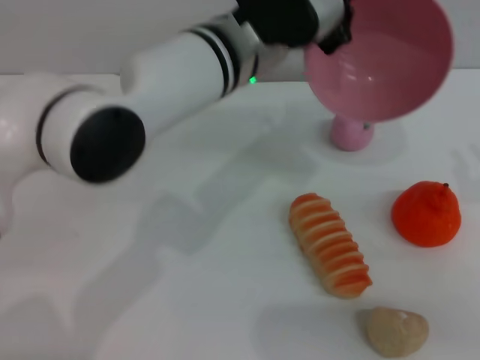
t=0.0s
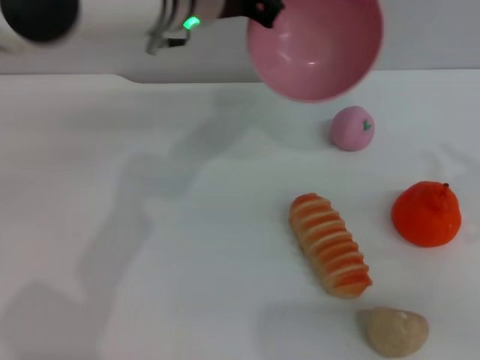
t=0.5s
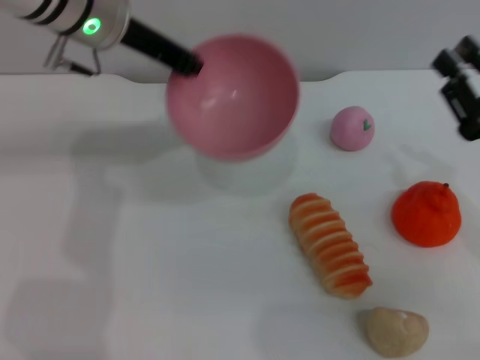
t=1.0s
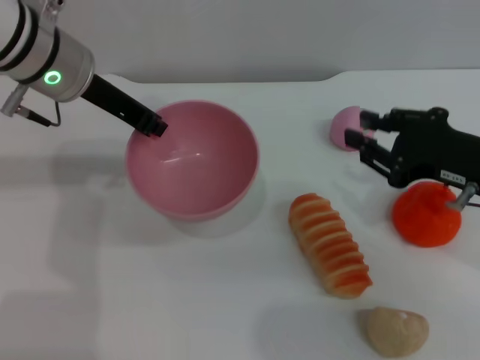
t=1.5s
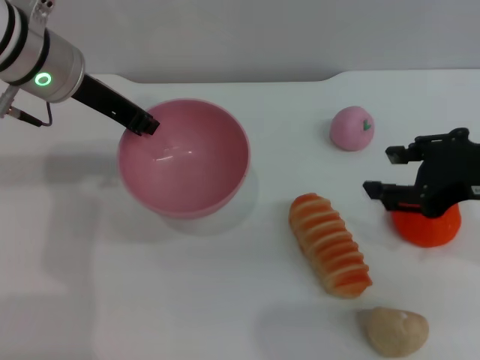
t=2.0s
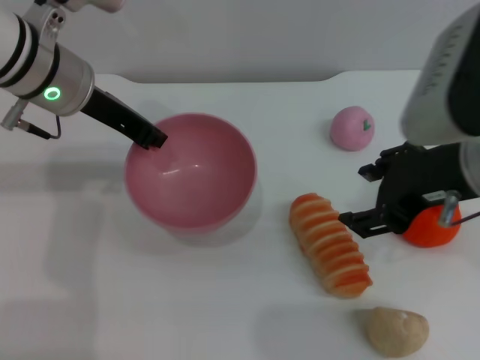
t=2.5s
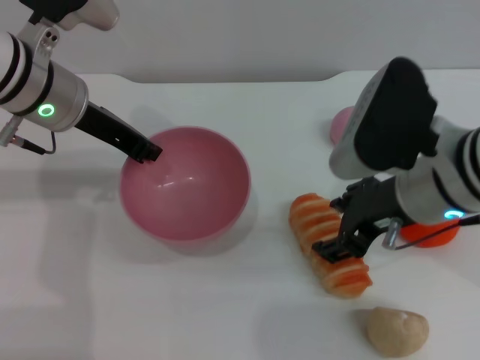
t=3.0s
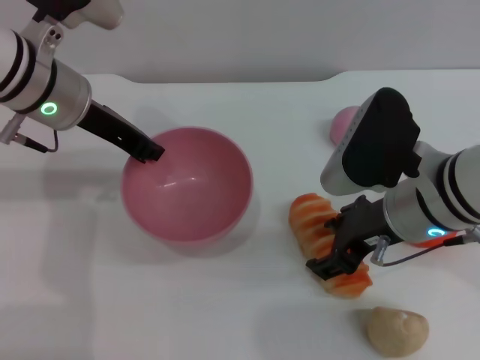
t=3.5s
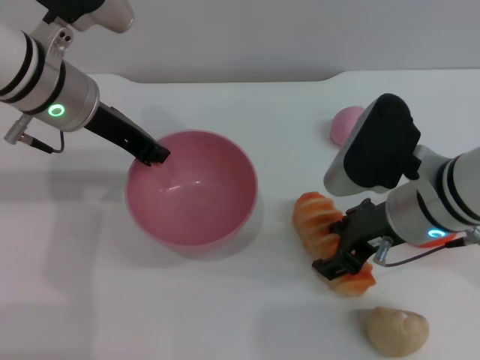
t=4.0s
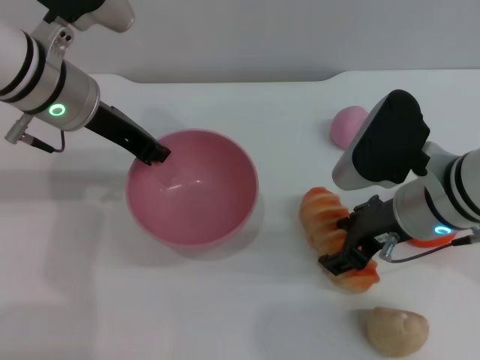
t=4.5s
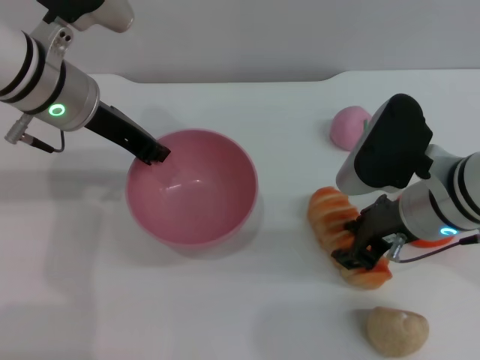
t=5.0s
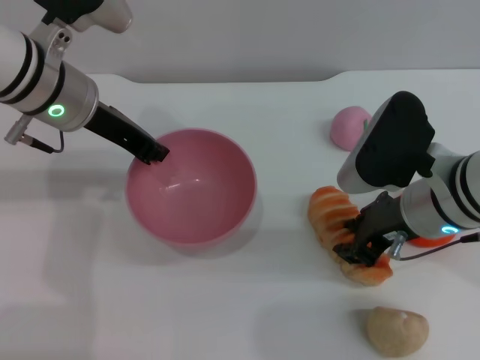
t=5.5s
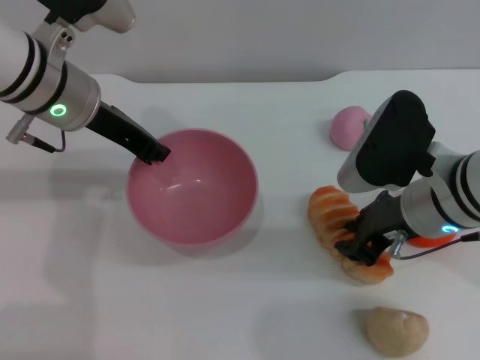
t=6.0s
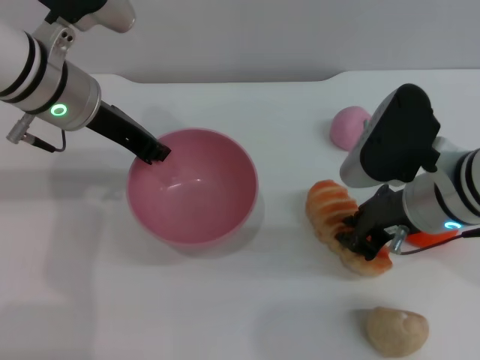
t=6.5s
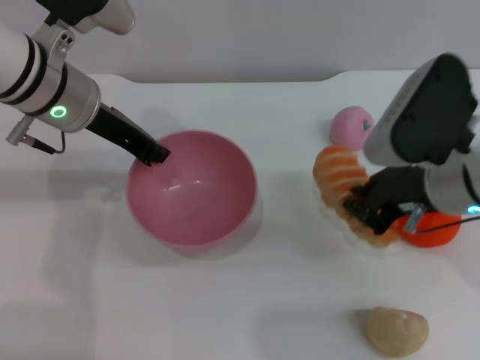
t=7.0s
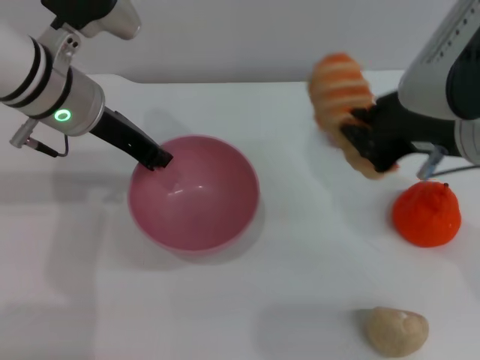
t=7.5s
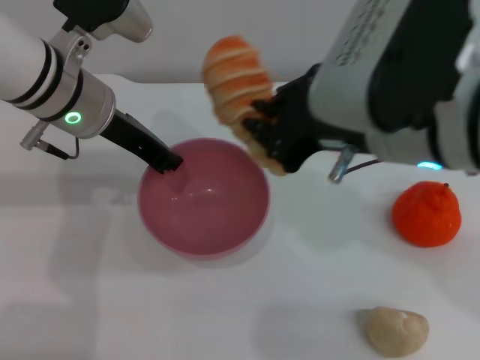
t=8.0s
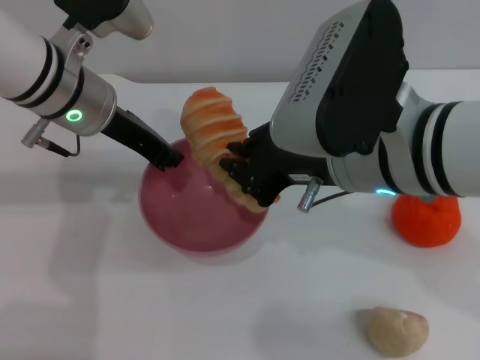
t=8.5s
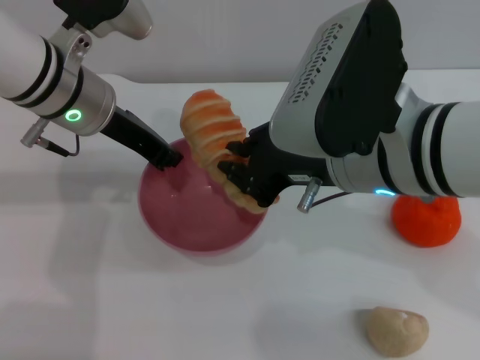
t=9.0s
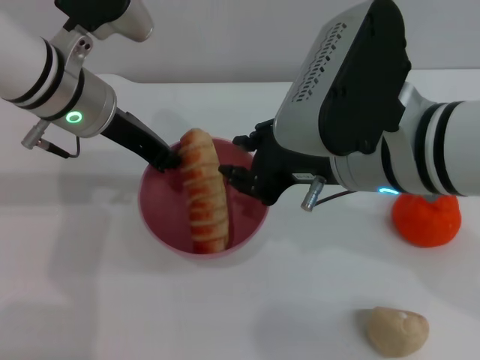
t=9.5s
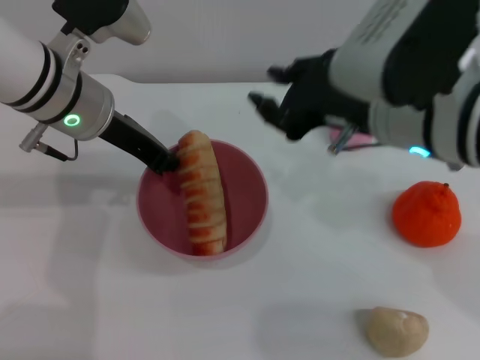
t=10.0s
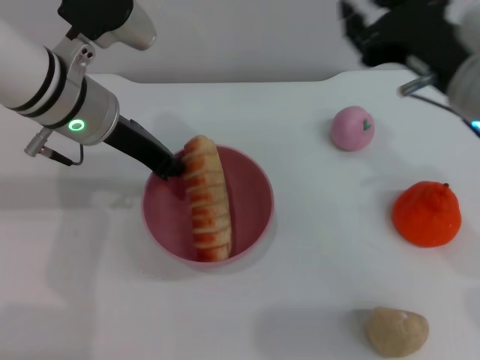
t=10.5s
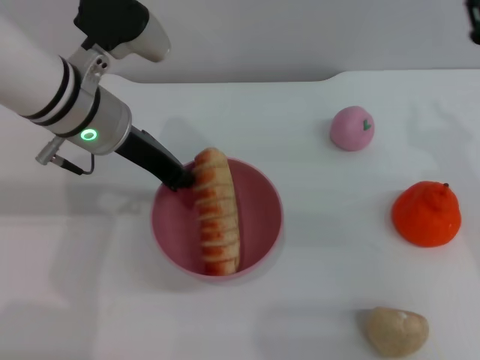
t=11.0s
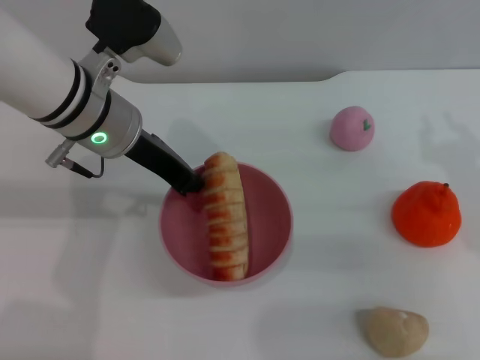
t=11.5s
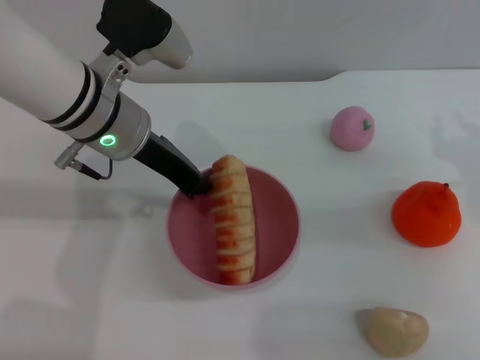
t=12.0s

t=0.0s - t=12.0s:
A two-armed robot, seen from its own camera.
Task of the whole recording: put the bread into the pink bowl and pour it out repeatedly.
Step, t=0.5s - t=7.0s: Pick up the bread with the right gripper.
Step, t=7.5s - t=10.0s: Place the bread into the bowl.
t=0.0s - t=2.0s: The right gripper heads to the left and upward, covering roughly 10 cm, while the left gripper travels to the left by some 15 cm.
t=2.0s - t=4.0s: The right gripper is displaced to the left and downward by about 10 cm, and opens up.
t=4.0s - t=6.0s: The right gripper closes its fingers.
t=6.0s - t=8.0s: The right gripper is displaced upward and to the left by about 15 cm, and closes.
t=8.0s - t=10.0s: The right gripper opens its fingers.
t=10.0s - t=12.0s: The right gripper goes about 15 cm to the right and downward.

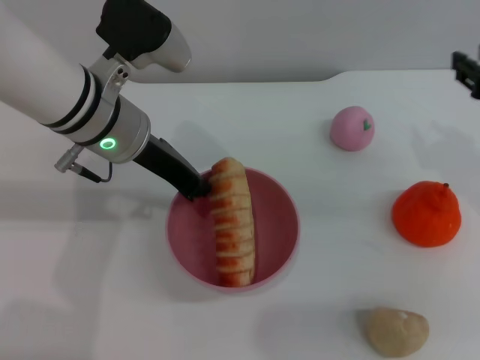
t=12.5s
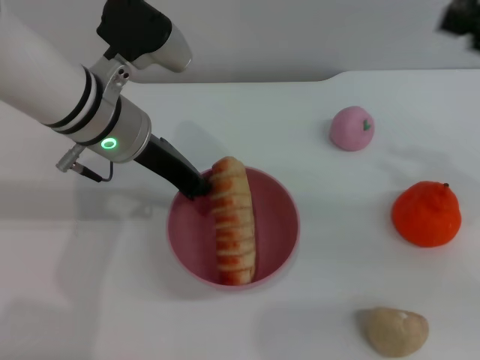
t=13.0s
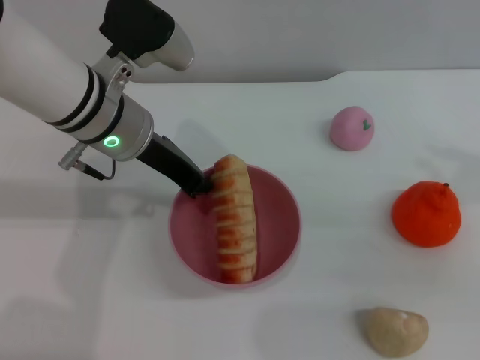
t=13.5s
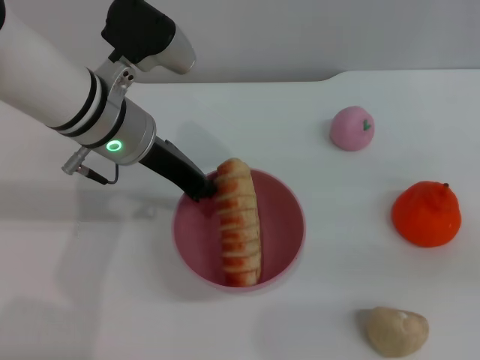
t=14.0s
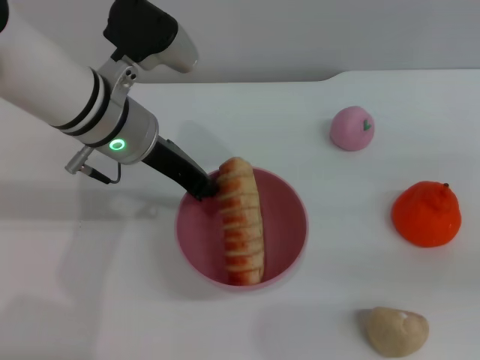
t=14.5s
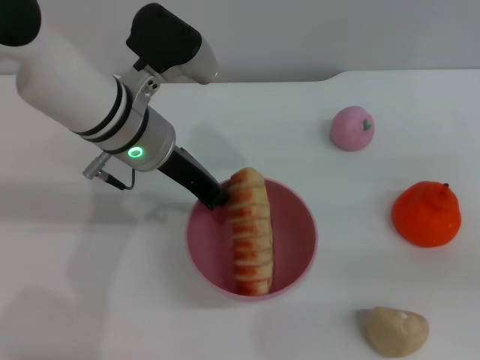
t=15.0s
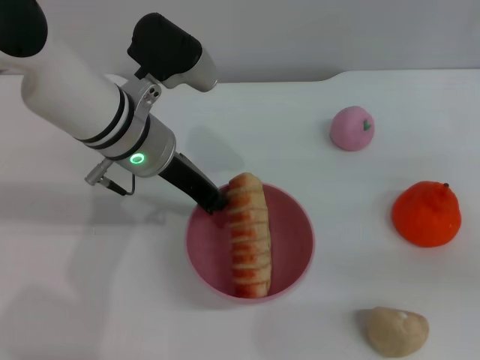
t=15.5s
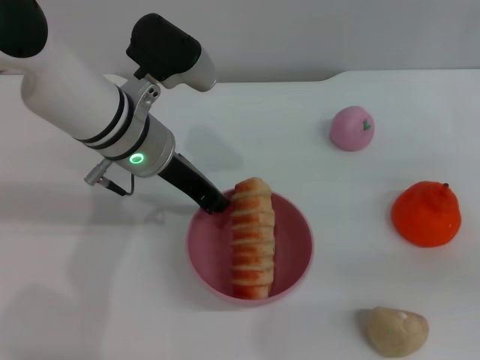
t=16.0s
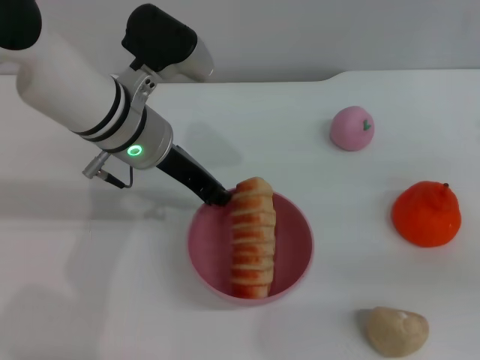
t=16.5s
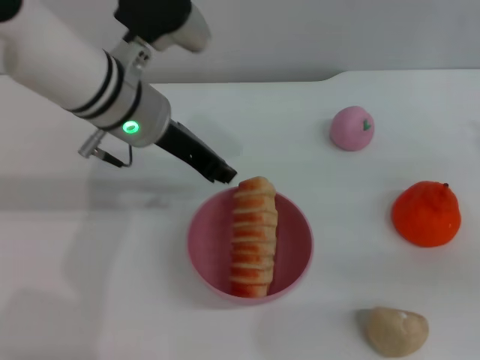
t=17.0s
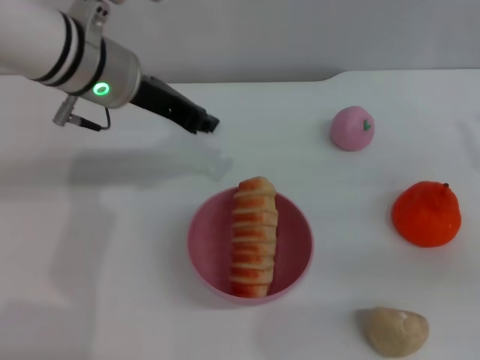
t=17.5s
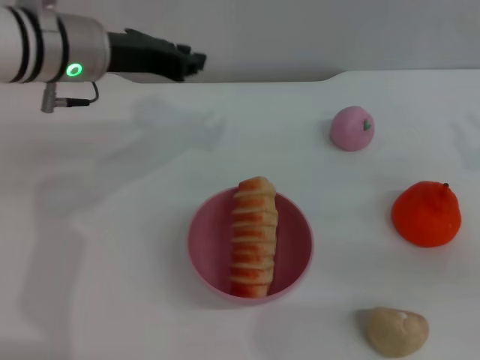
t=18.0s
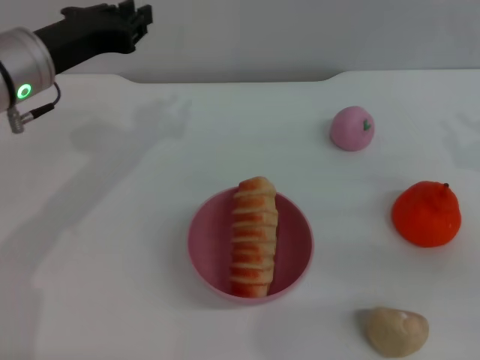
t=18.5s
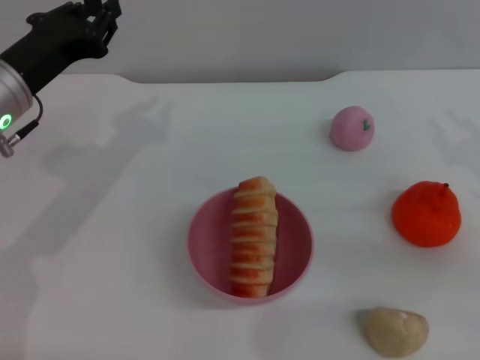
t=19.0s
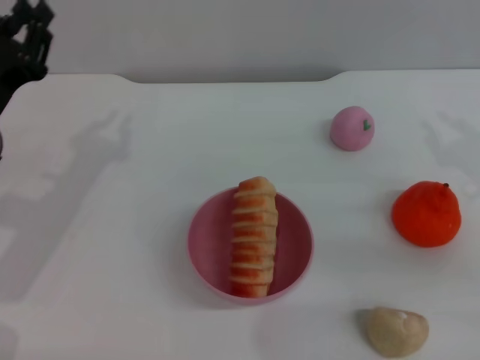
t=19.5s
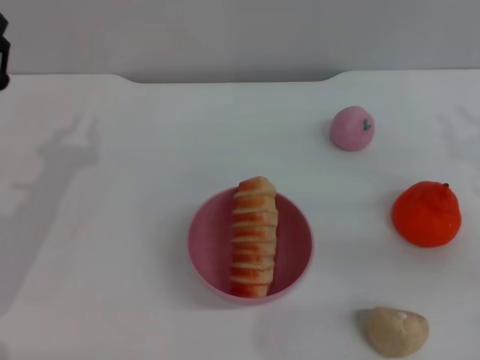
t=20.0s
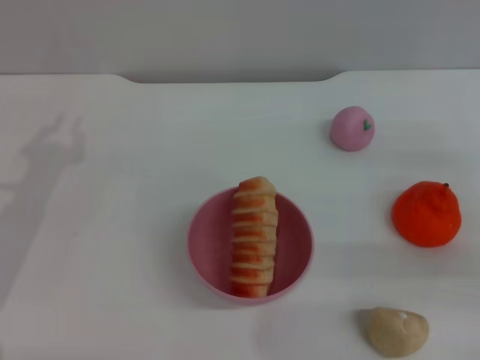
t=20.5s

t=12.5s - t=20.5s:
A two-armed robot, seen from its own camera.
Task of the whole recording: put the bread into the pink bowl and pour it out repeatedly.
Step, t=12.5s - t=17.0s: Place the bowl on the table.
t=12.5s - t=14.5s: The right gripper is displaced to the right by about 15 cm.
t=14.5s - t=16.5s: The grippers make only small movements.
t=16.5s - t=18.5s: The left gripper travels to the left by approximately 10 cm.
t=18.5s - t=20.5s: The left gripper goes roughly 15 cm to the left, backward and downward.
